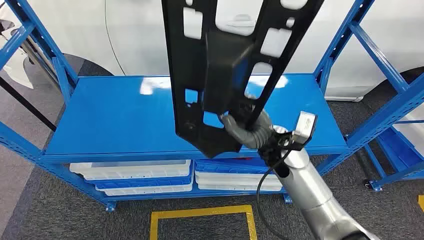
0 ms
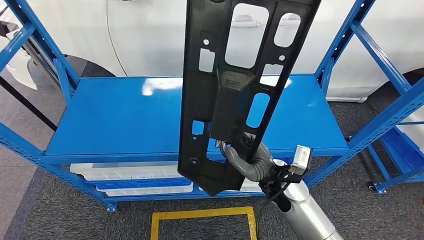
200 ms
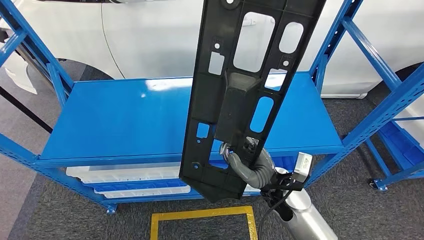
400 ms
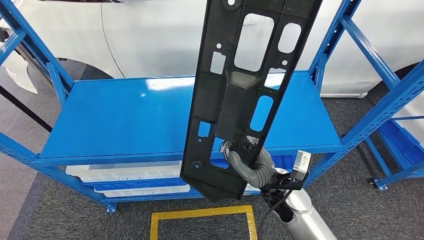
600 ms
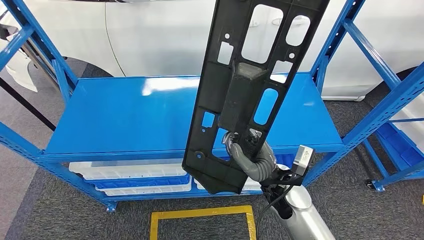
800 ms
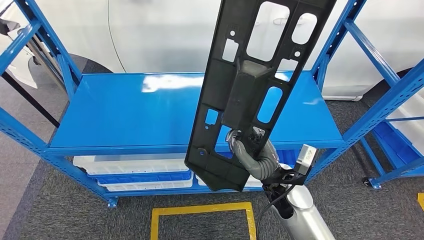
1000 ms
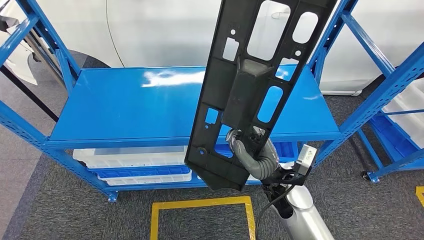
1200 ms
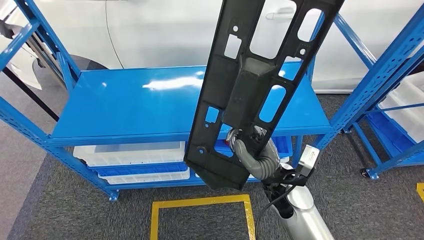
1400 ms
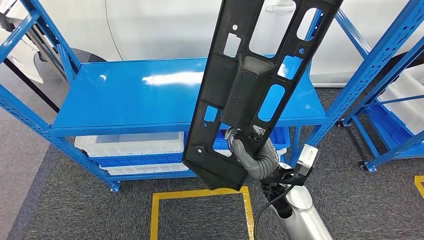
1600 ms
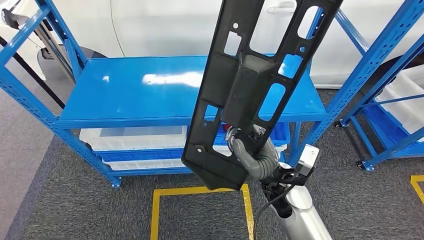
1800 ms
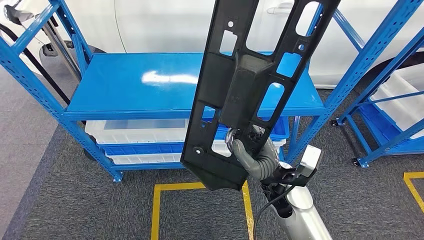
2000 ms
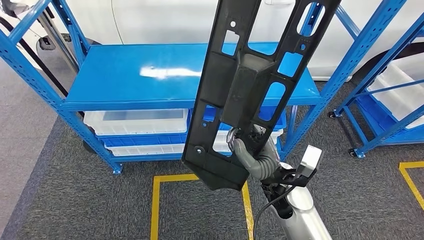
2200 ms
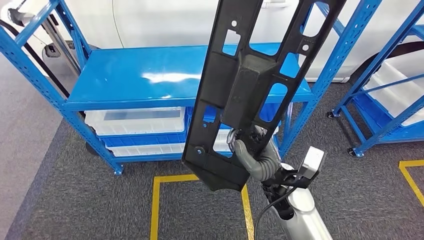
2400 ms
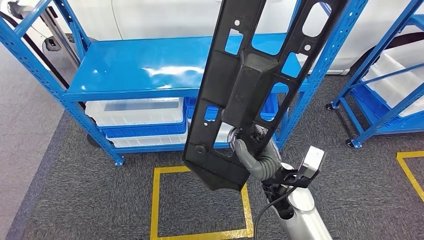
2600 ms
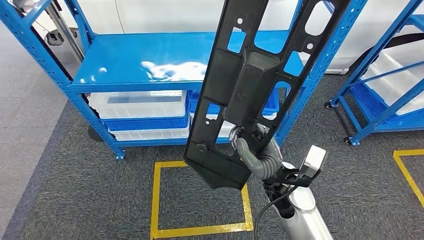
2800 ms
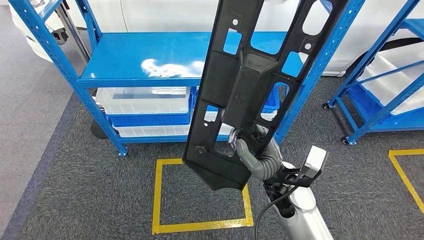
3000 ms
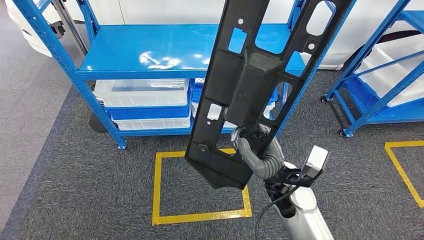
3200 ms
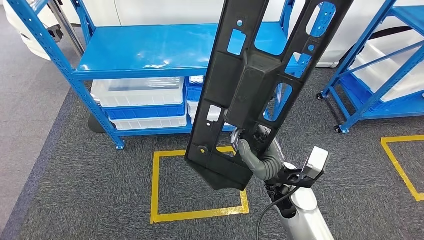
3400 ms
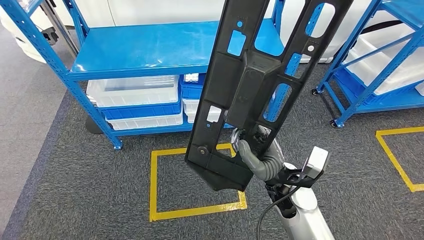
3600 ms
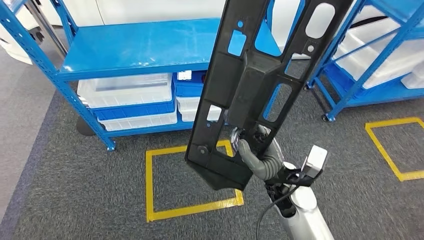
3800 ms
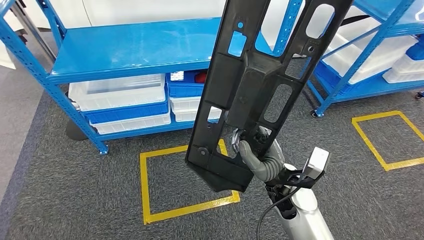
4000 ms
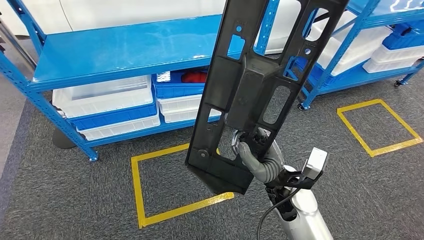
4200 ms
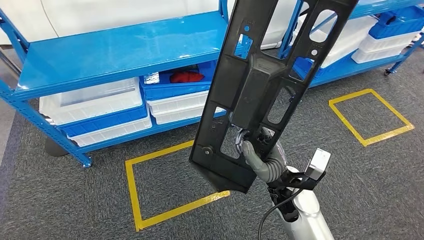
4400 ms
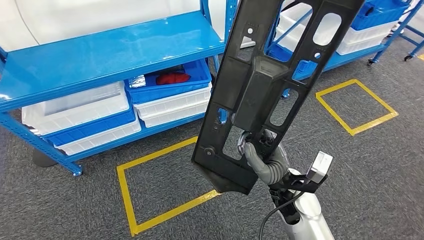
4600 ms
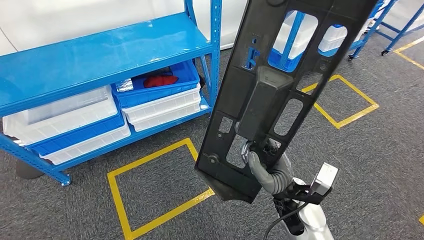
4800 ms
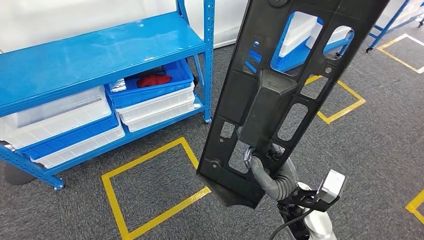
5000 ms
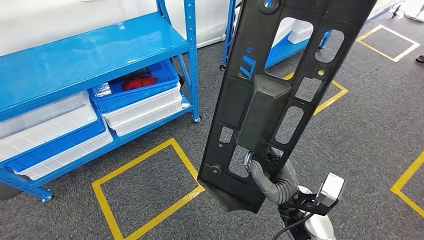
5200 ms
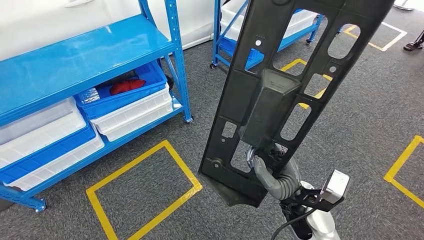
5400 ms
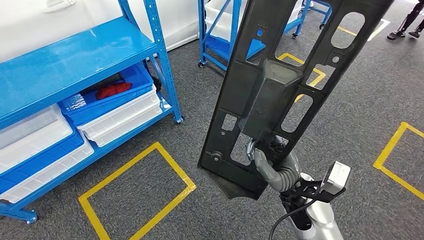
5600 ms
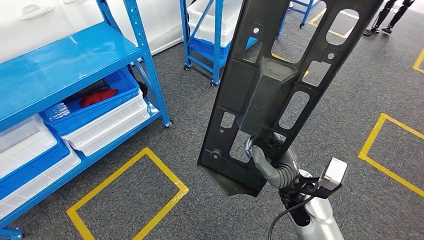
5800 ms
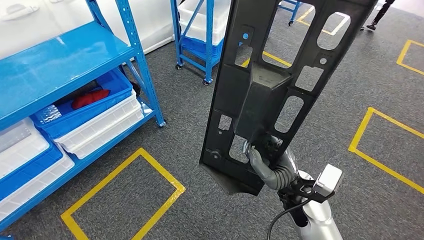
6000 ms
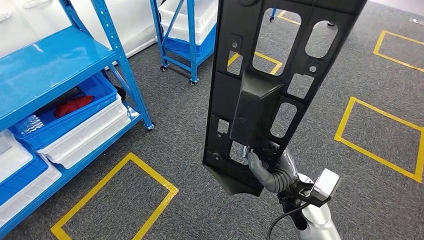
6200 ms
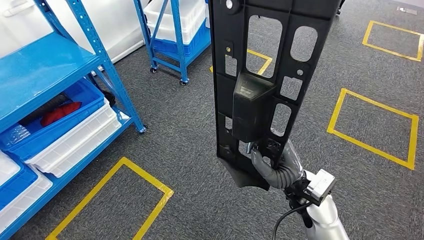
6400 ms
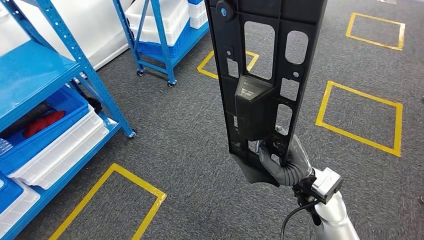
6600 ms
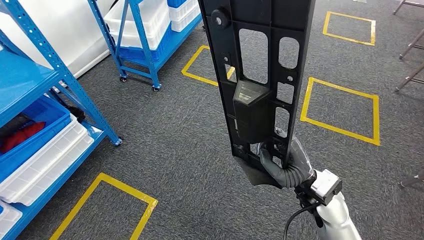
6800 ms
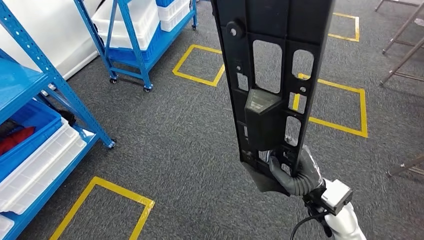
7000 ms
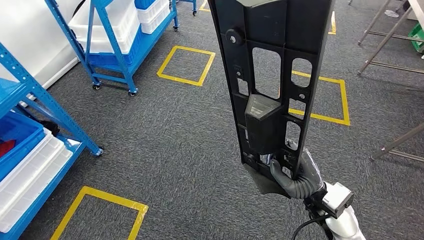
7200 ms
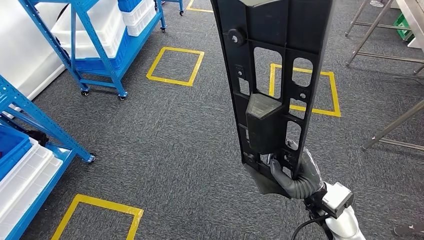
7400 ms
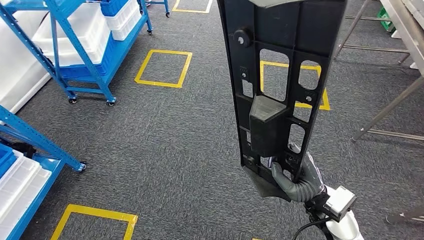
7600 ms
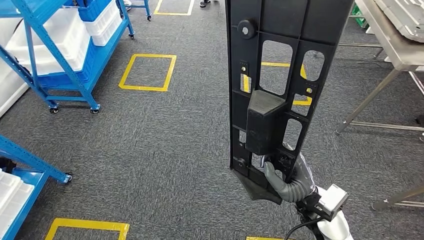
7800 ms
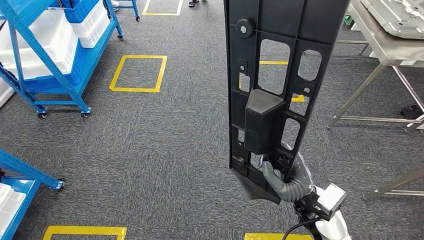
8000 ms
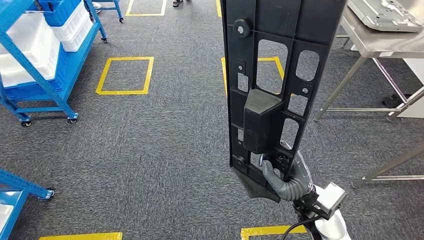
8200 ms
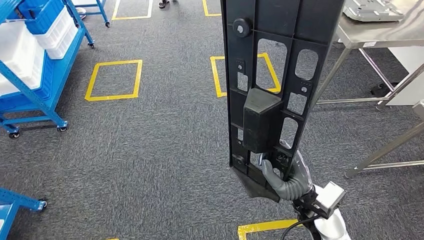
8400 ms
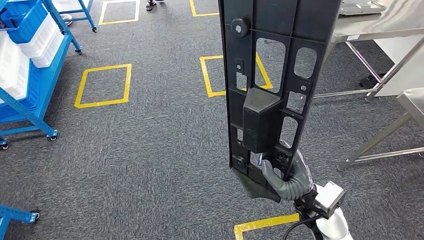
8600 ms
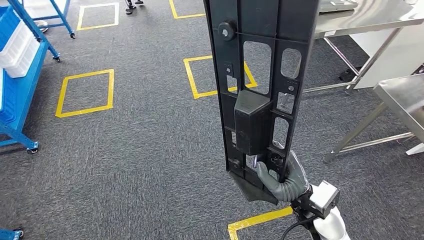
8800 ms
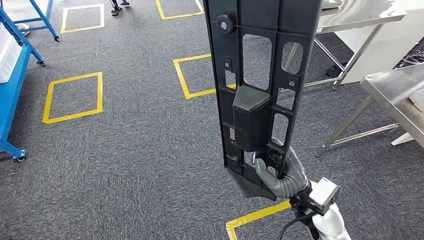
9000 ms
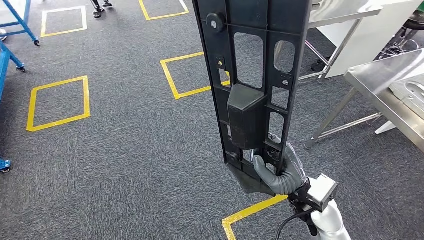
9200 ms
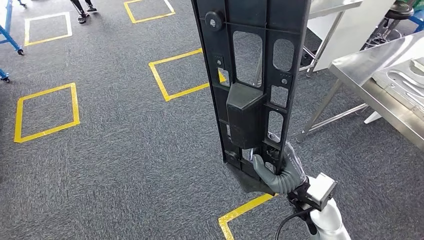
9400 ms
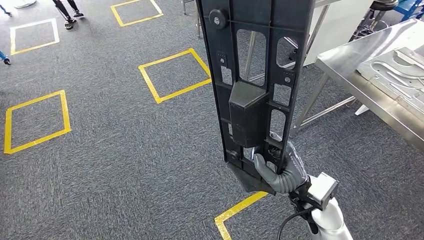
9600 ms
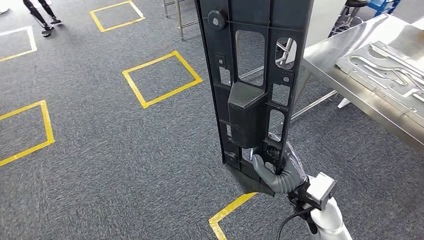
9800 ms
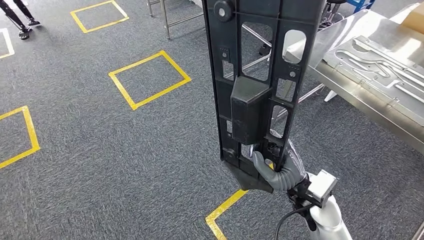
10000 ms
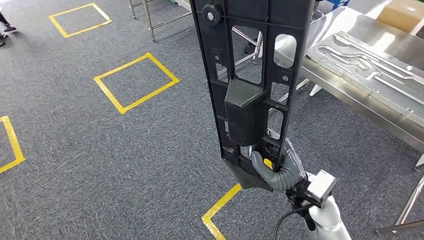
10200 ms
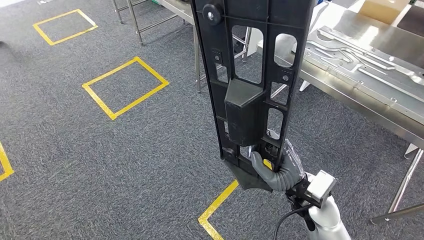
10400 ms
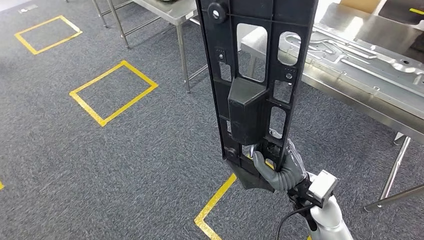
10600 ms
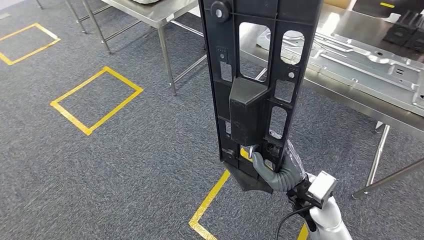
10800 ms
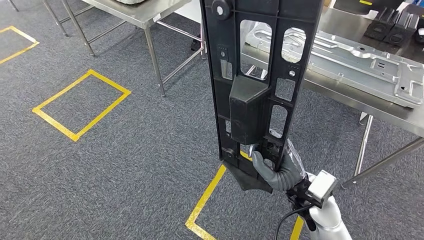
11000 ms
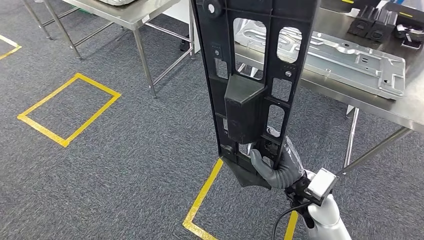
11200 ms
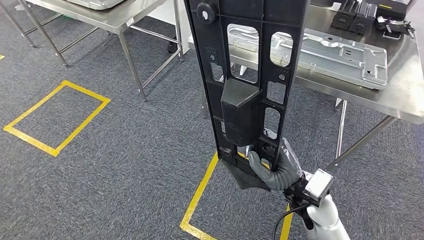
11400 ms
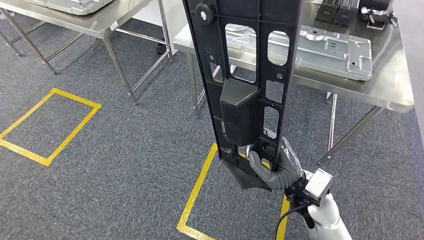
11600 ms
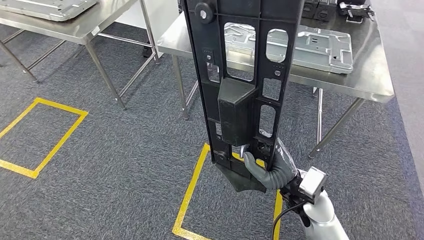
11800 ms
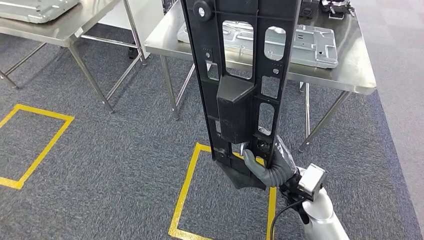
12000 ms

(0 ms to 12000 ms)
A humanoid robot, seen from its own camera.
Step, 0 ms - 1000 ms: Pick up the large material from the shelf.

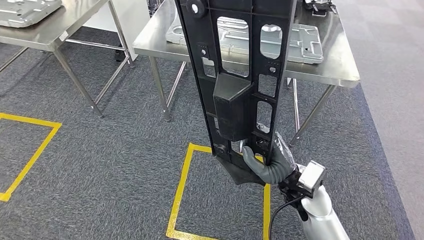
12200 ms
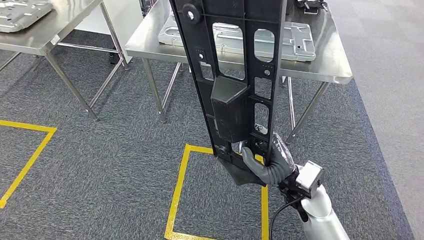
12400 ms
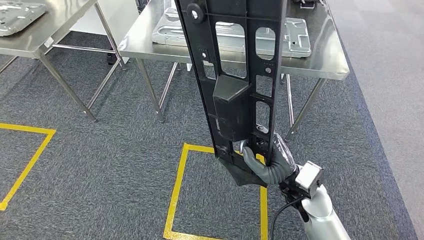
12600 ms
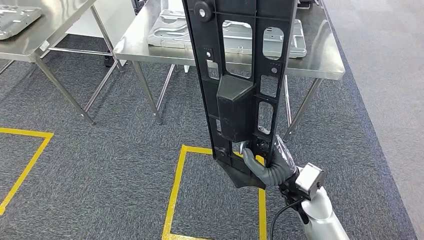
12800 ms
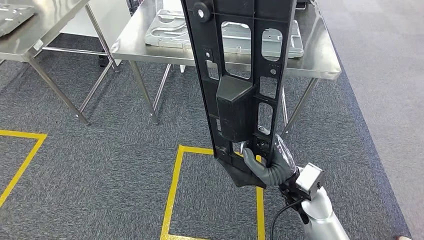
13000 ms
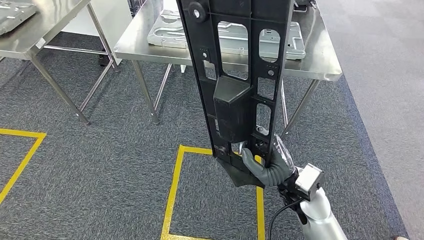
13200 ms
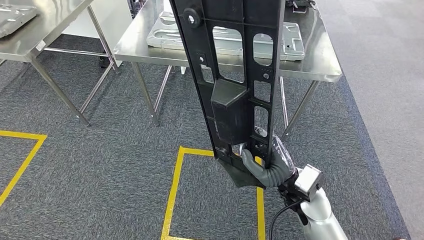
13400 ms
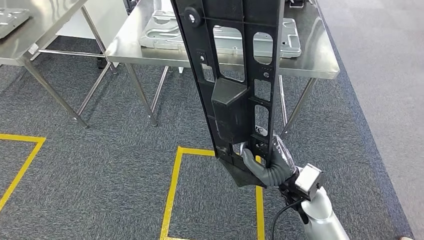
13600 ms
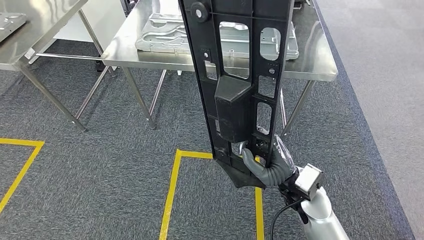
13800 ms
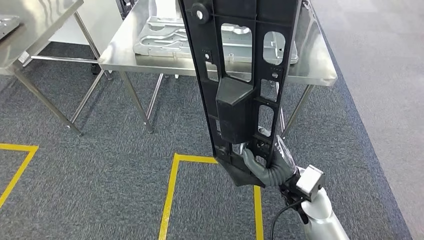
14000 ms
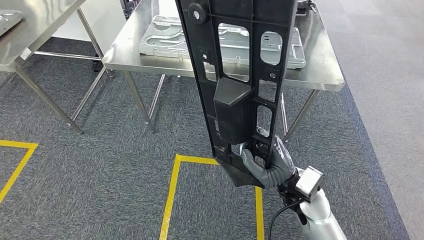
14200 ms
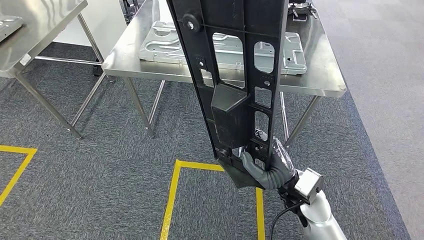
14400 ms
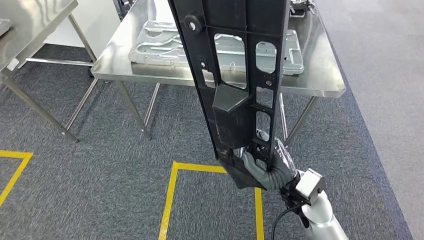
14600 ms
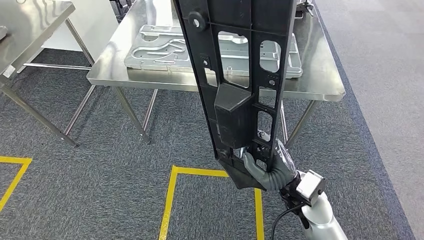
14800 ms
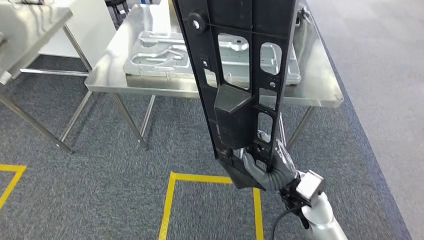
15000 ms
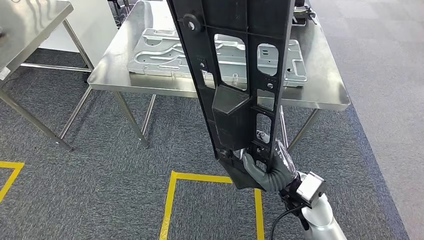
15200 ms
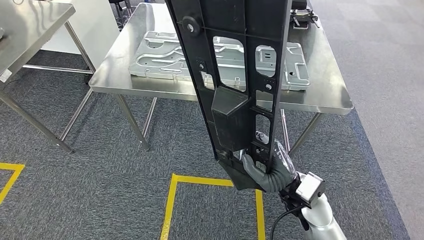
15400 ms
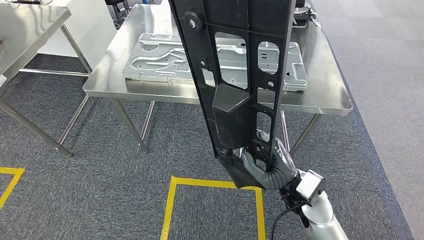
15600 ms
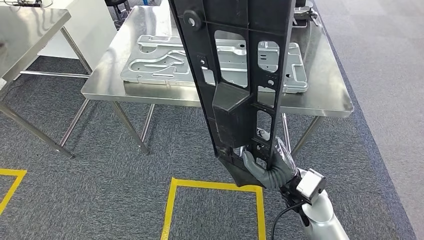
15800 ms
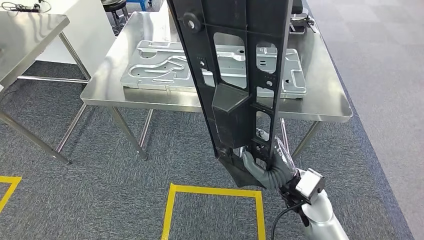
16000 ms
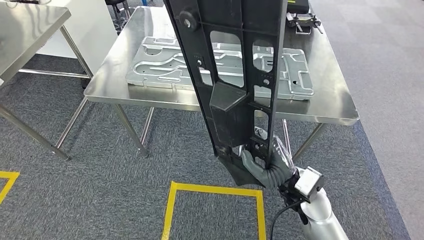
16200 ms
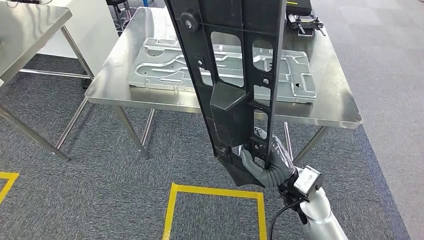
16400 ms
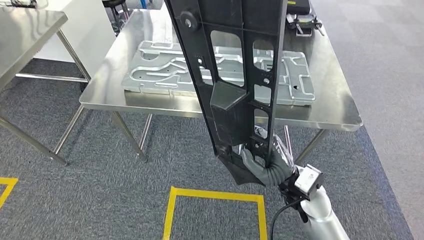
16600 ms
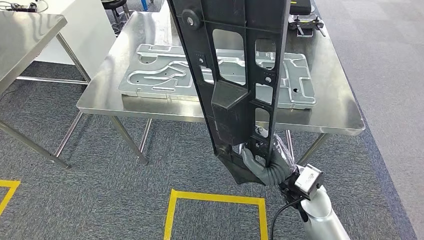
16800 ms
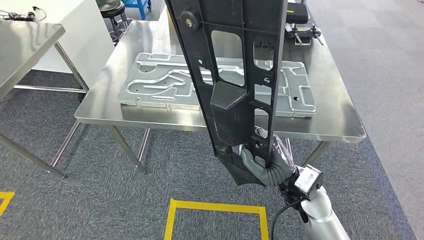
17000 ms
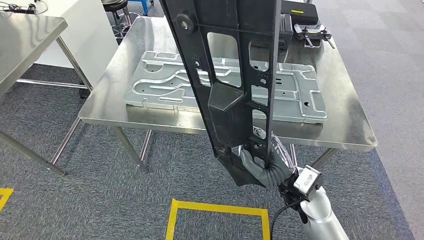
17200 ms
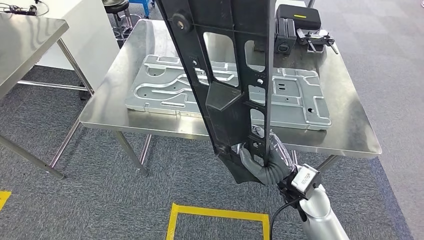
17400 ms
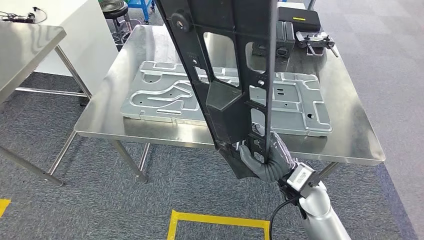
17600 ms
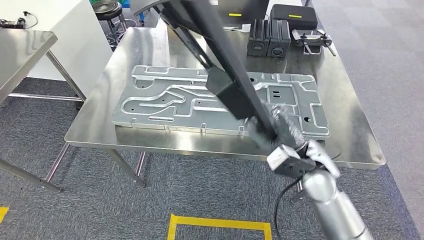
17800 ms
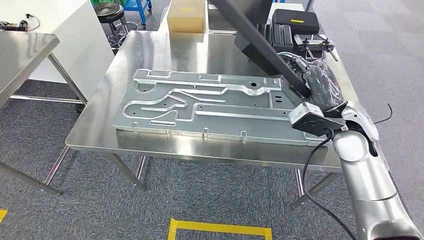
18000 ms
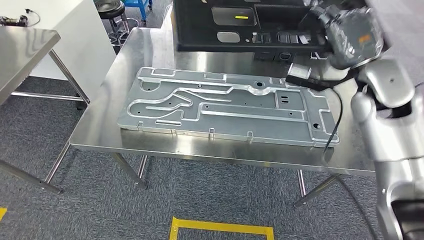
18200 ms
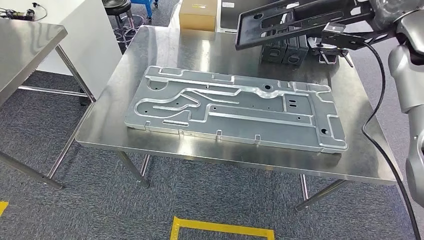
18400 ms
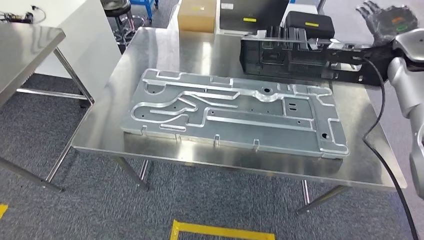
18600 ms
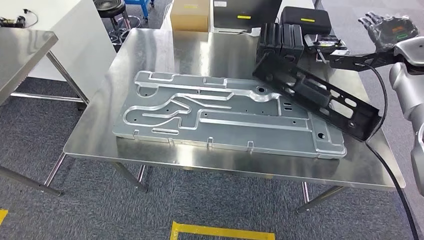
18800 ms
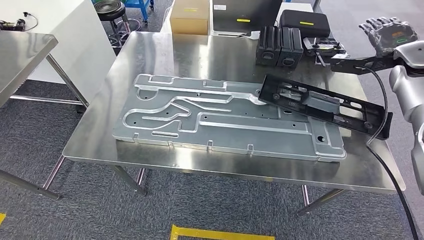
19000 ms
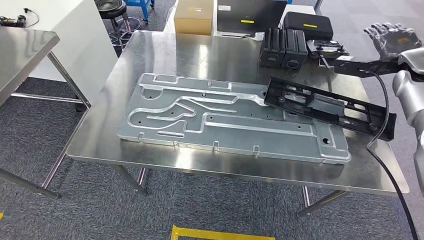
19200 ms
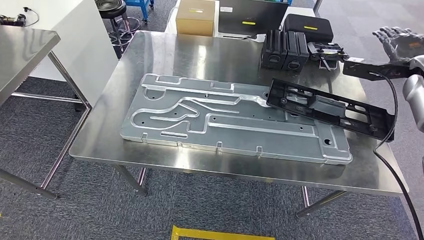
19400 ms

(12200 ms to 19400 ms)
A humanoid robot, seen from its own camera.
Step, 12200 ms - 18200 ms: Move the large material to the workbench.
